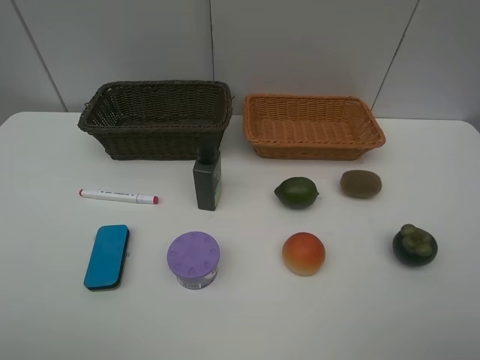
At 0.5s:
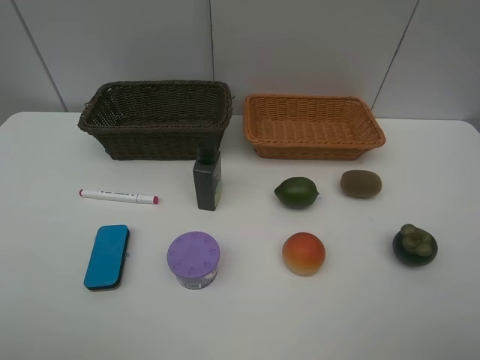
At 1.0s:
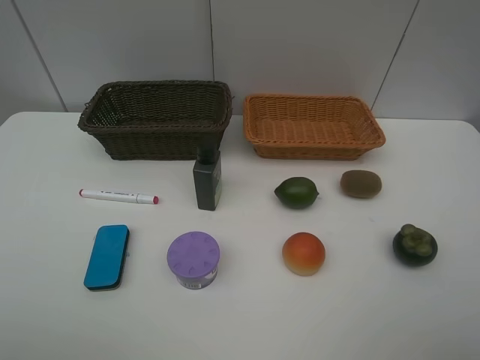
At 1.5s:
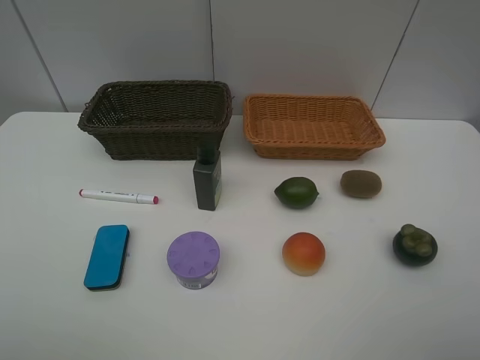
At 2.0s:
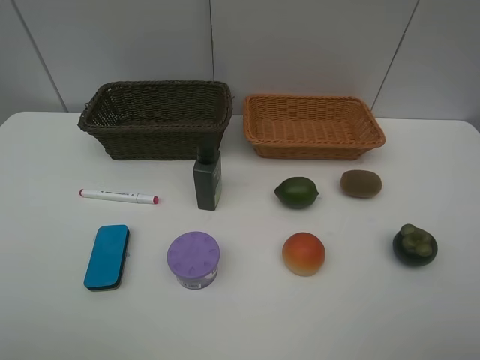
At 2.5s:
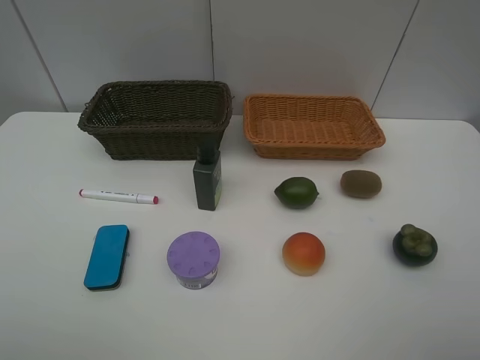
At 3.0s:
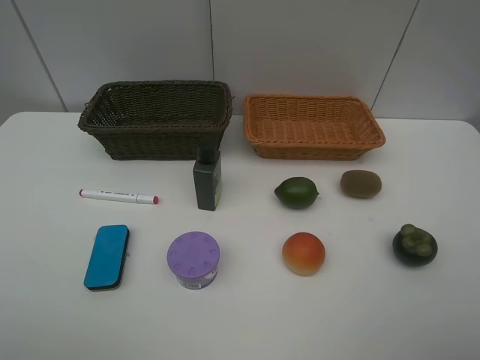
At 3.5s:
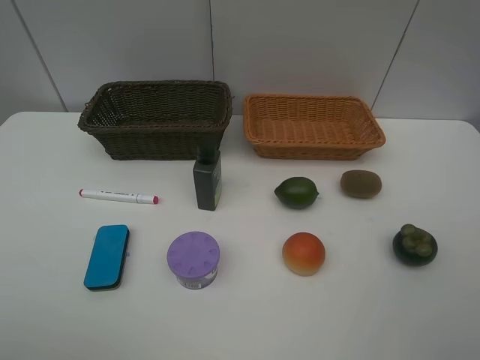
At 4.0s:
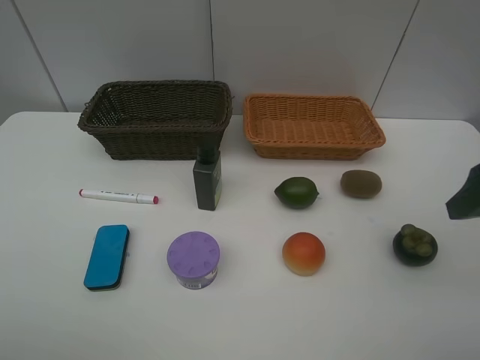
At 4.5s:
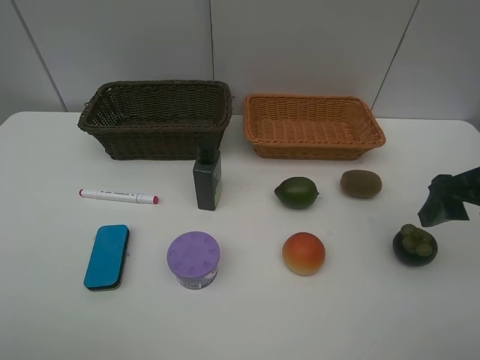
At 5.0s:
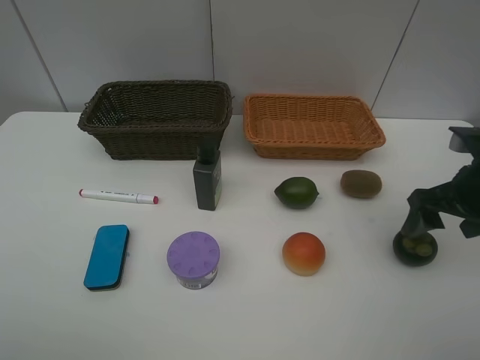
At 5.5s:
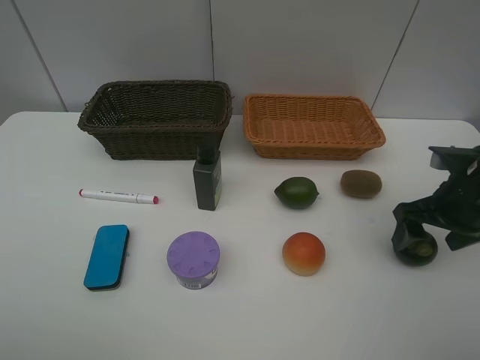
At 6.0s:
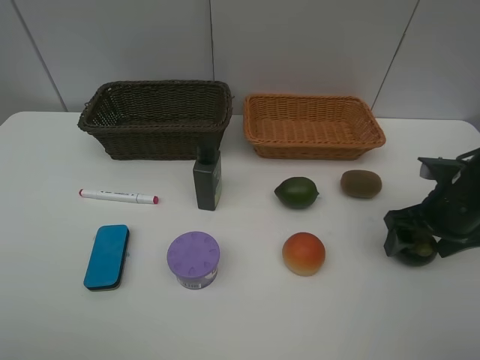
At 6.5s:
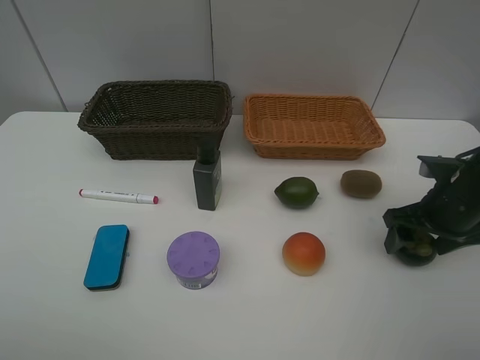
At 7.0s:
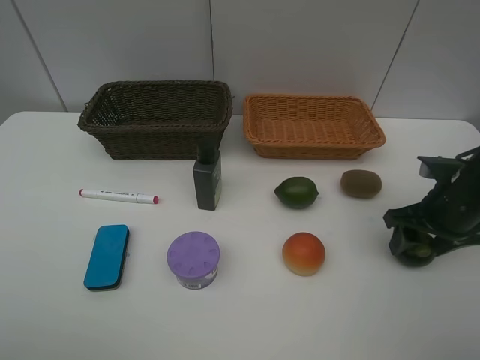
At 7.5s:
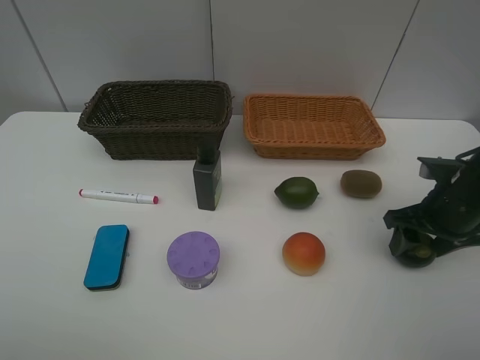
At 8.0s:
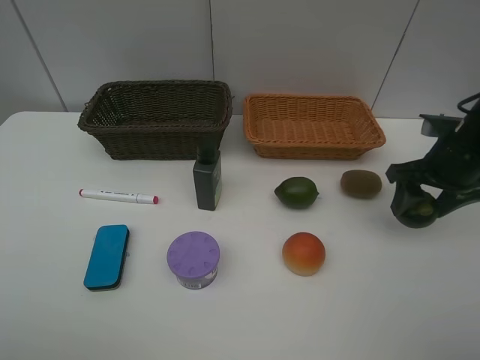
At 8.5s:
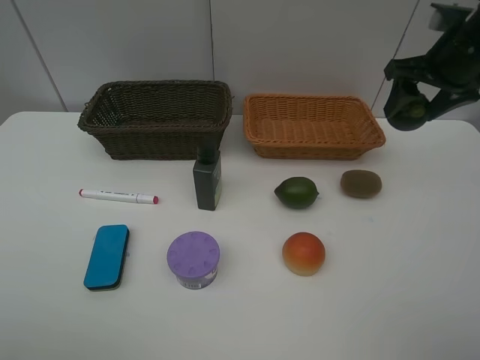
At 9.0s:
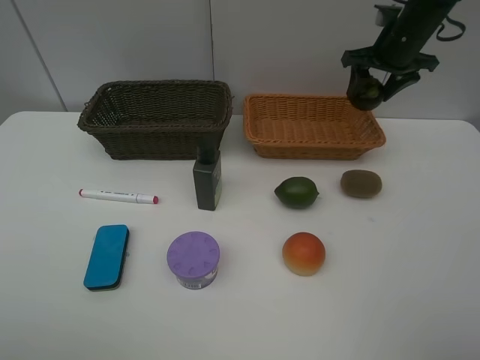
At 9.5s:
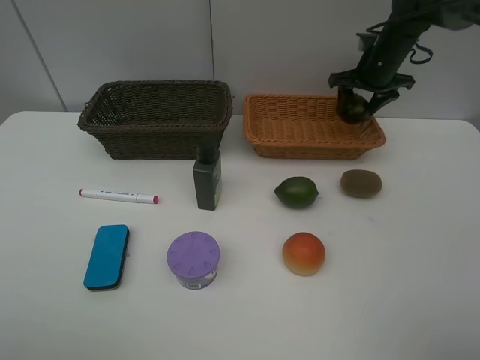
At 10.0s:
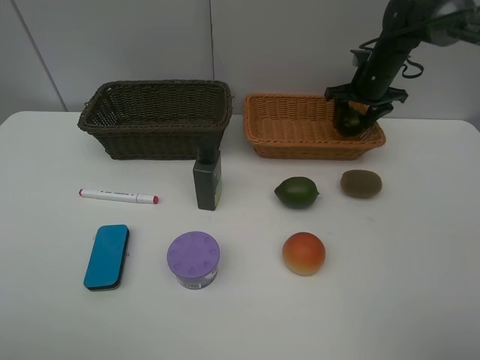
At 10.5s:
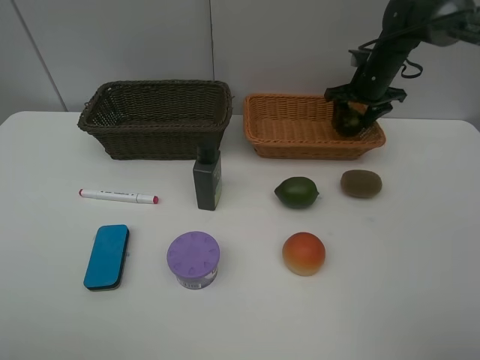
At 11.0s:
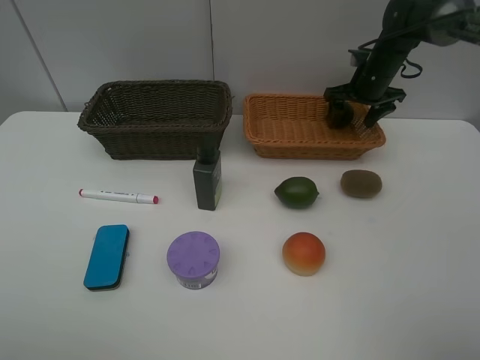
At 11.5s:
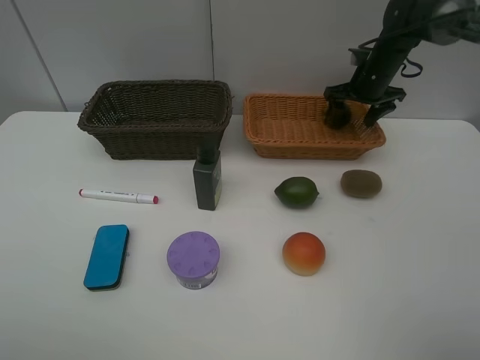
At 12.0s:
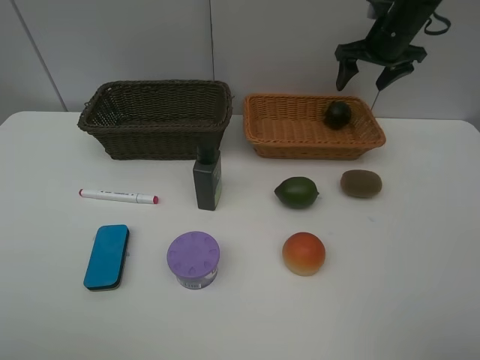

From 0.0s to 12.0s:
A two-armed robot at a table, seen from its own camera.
Task of the whole recording: Place multiple objects separately in different baskets.
Step, from 0.0s to 7.5s: Pick up the mangosteen with right gripper.
Step, from 8.0s to 11.5s: Place the mangosteen in the light basket with right gripper.
From 0.0s to 2.0s: Neither gripper changes place.
From 2.0s to 4.0s: The right gripper goes about 15 cm forward.
From 4.0s to 6.0s: The right gripper goes approximately 15 cm downward and forward.
From 6.0s to 8.0s: The right gripper moves some 5 cm, and closes its fingers.
From 8.0s to 10.0s: The right gripper moves forward, approximately 20 cm.
From 10.0s to 12.0s: The right gripper travels upward by about 10 cm, and opens its fingers.

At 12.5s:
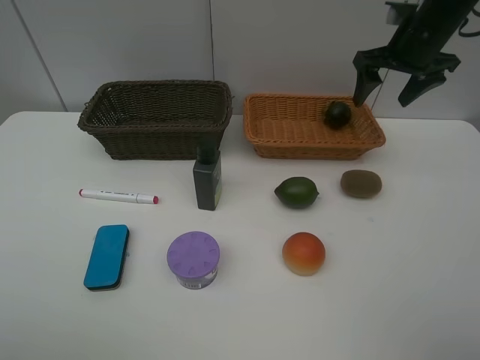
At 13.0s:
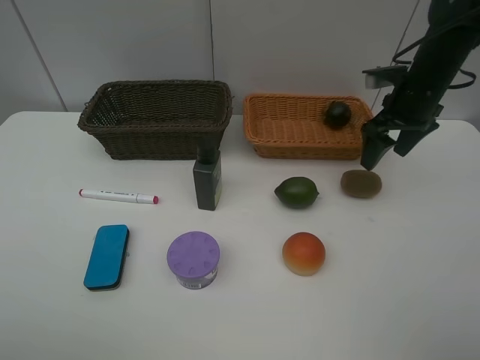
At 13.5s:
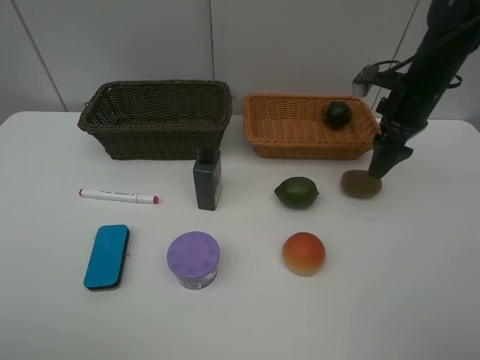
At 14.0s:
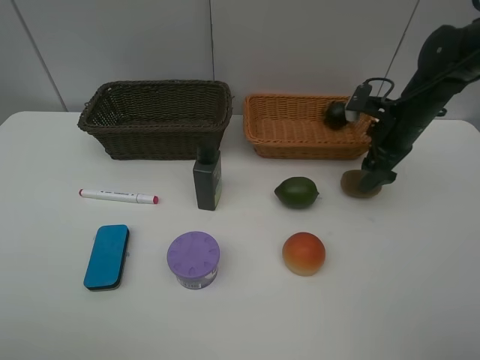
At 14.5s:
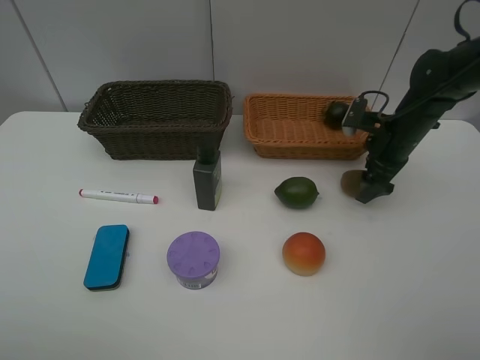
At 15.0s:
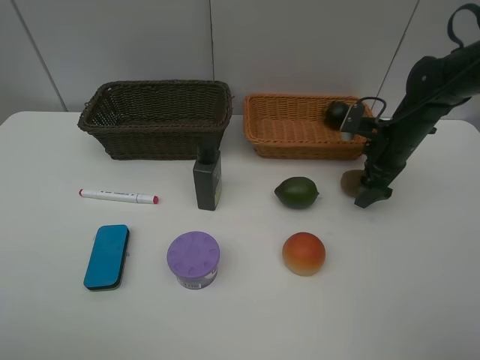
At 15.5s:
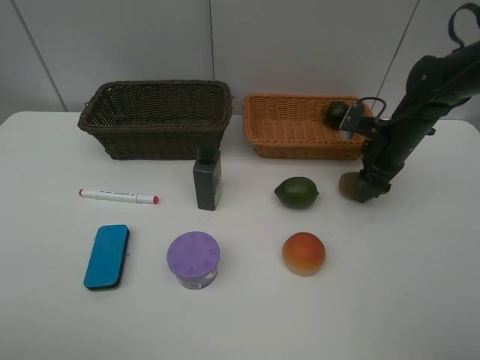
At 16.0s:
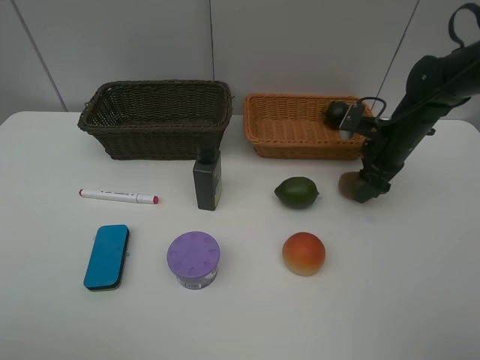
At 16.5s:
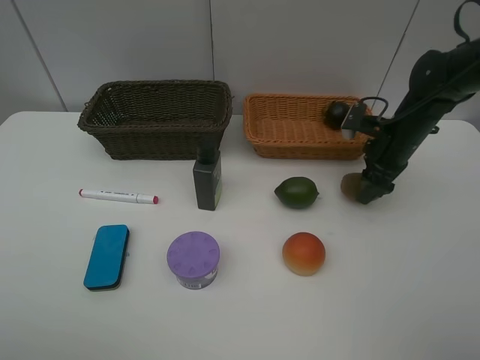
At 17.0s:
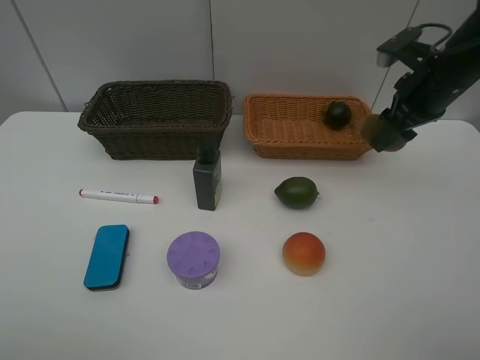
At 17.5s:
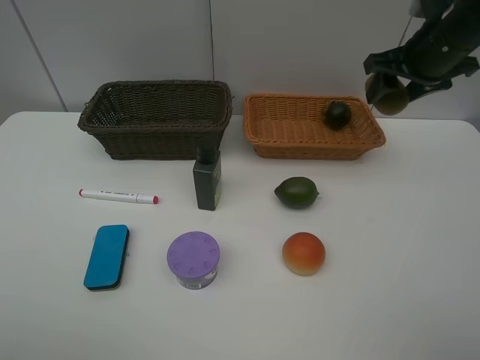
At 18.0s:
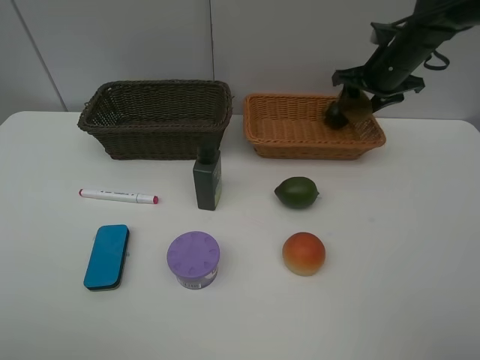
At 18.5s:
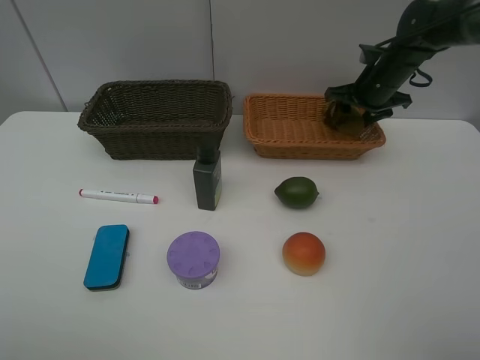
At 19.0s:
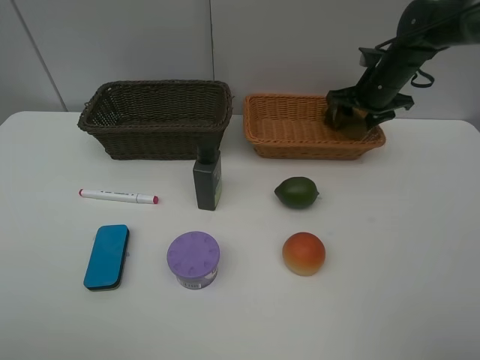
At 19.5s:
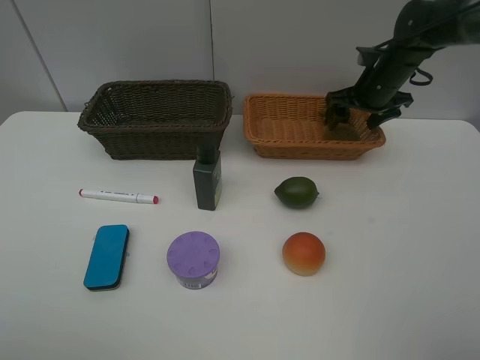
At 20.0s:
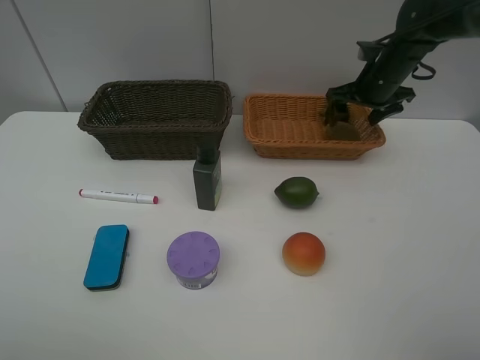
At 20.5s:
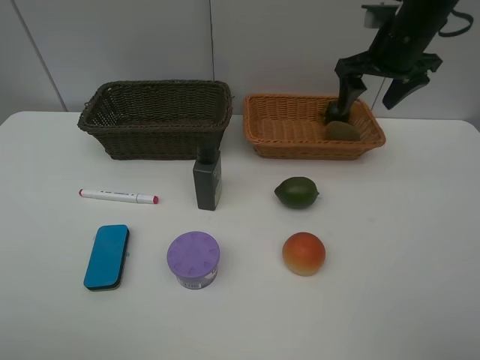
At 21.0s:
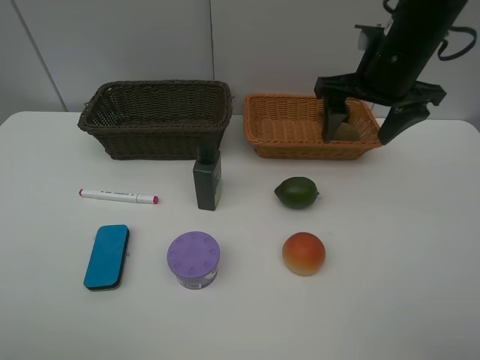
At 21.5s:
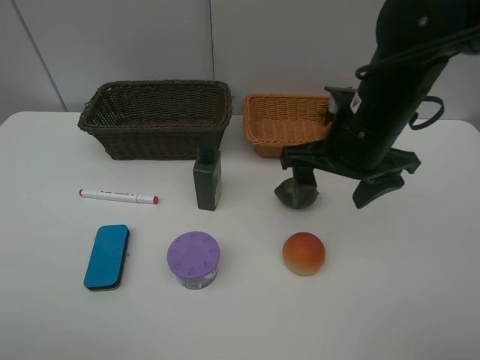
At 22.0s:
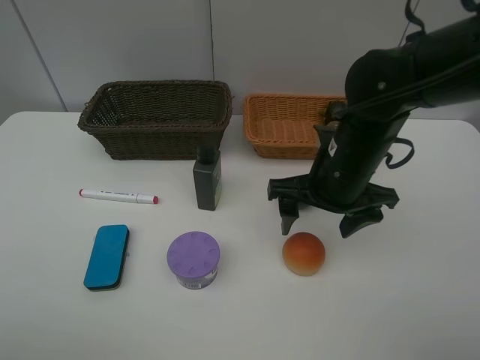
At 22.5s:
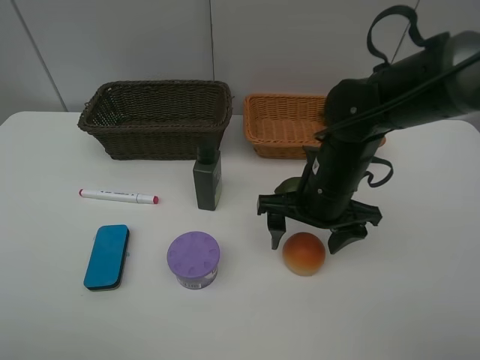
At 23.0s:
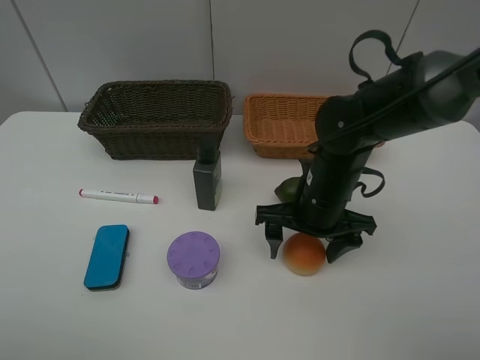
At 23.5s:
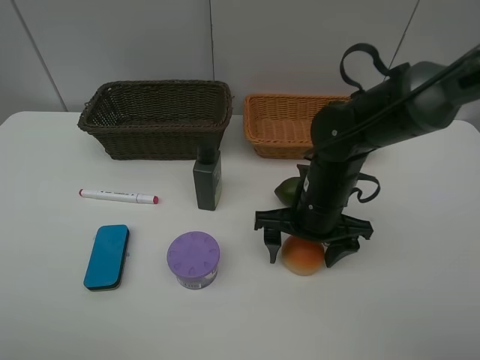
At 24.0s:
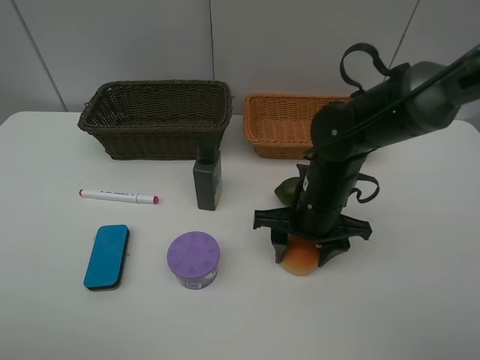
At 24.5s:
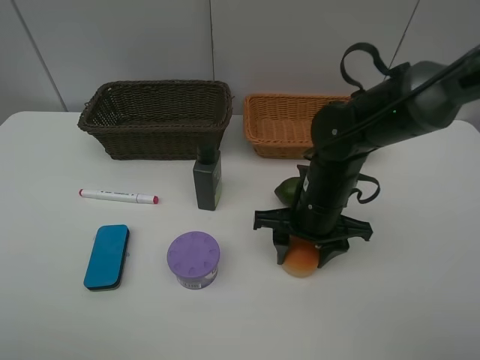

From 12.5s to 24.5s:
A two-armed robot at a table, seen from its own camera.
Task of the whole recording: Place multiple objects separately in different baskets.
Step, from 12.5s to 16.5s: Pick up kiwi with right gripper.
Step, from 17.0s to 20.0s: Place the kiwi in the light basket with right gripper.
From 12.5s to 14.5s: The right gripper shifts approximately 15 cm downward.
From 14.5s to 16.5s: The right gripper closes up.
From 16.5s to 18.5s: The right gripper travels forward by some 10 cm, and goes upward and returns, some 15 cm each way.
From 18.5s to 20.5s: The right gripper goes some 10 cm upward and backward, and opens up.
From 20.5s to 22.5s: The right gripper heads backward, downward and to the left, covering some 20 cm.
From 22.5s to 24.5s: The right gripper closes its fingers.

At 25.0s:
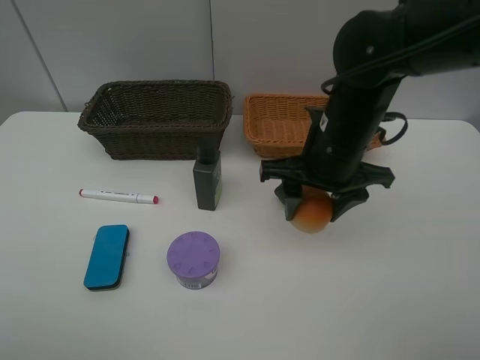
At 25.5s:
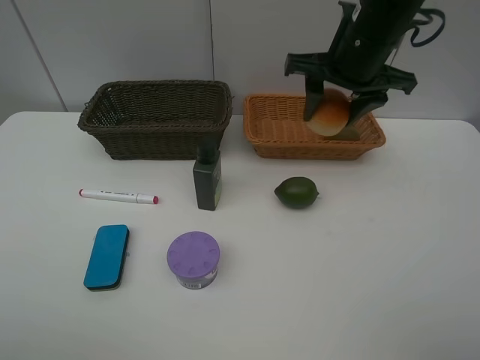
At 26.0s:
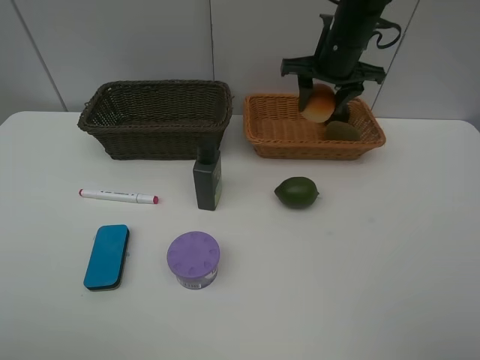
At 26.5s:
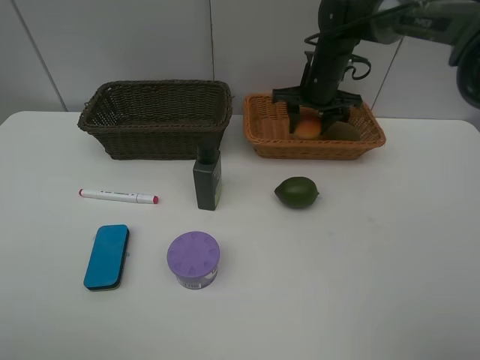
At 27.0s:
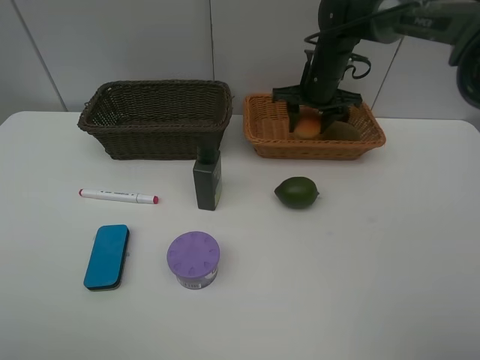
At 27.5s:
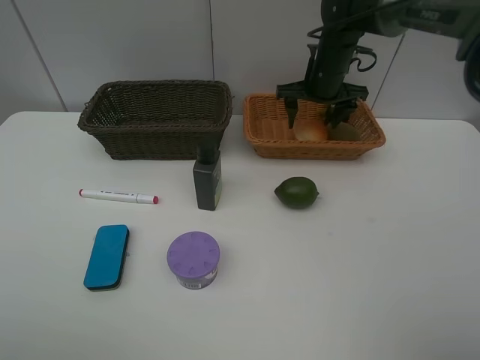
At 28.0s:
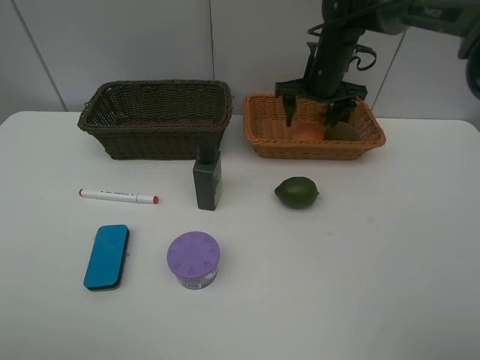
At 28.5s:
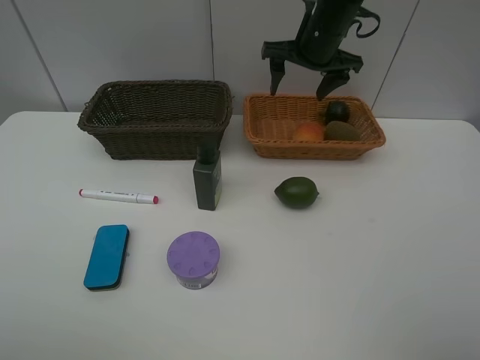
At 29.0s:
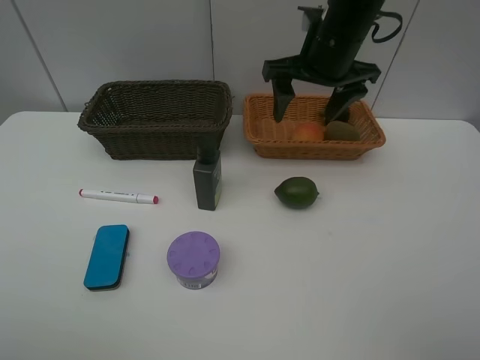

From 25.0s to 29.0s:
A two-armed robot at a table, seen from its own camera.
Task of the whole recording: Place multiple objects separately in different baskets.
Step, from 25.0s to 28.0s: Place the egg yolk pastry in the light basket with right gripper.
From 25.0s to 27.0s: The right gripper moves forward, roughly 20 cm.
From 27.0s to 29.0s: The right gripper goes roughly 15 cm backward and upward, and opens its fingers.
